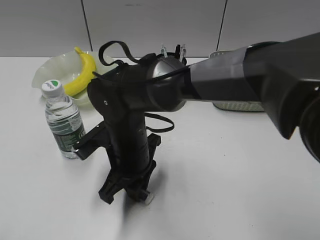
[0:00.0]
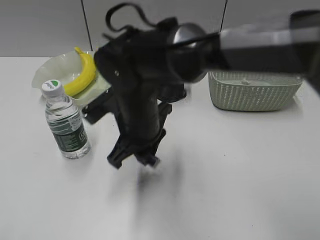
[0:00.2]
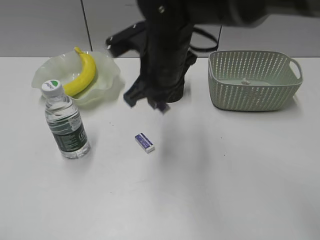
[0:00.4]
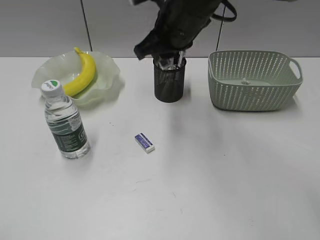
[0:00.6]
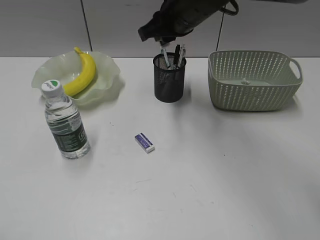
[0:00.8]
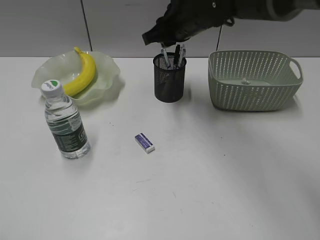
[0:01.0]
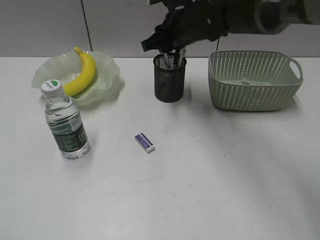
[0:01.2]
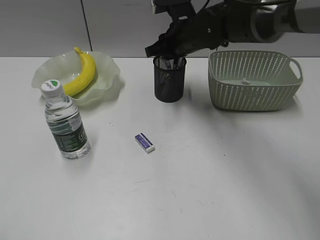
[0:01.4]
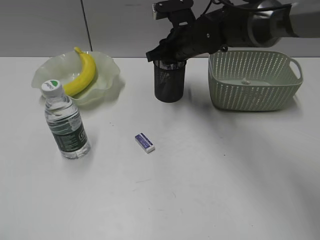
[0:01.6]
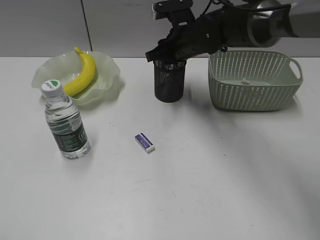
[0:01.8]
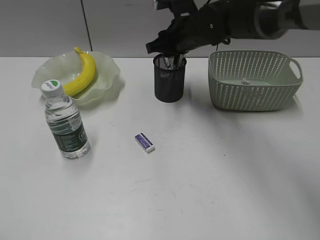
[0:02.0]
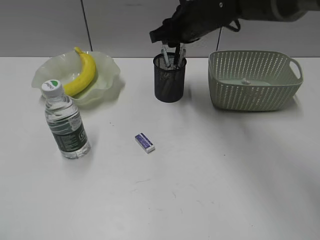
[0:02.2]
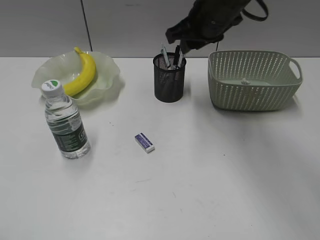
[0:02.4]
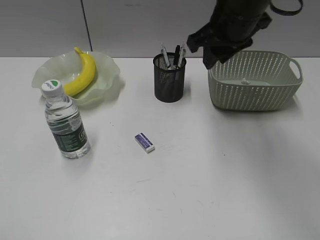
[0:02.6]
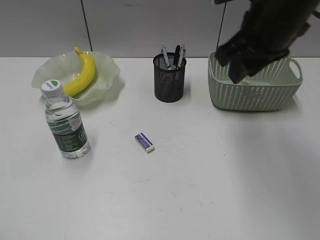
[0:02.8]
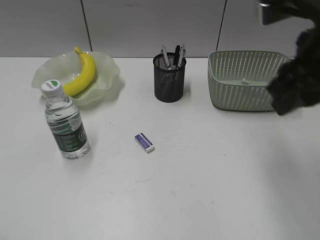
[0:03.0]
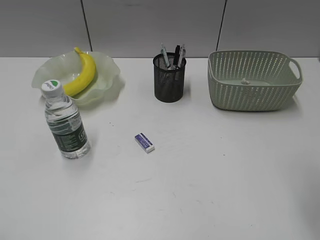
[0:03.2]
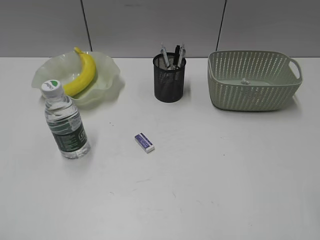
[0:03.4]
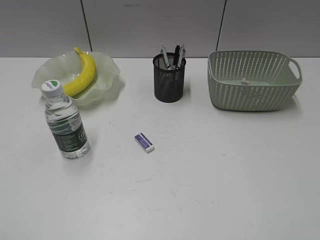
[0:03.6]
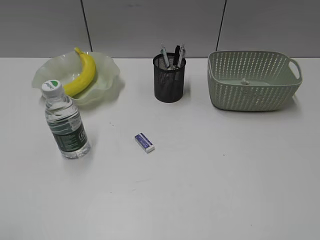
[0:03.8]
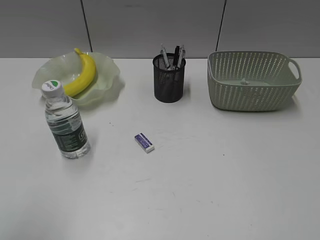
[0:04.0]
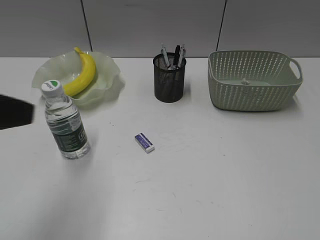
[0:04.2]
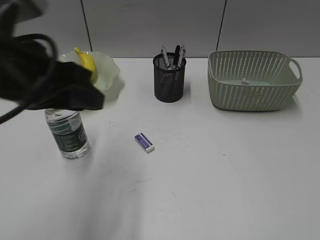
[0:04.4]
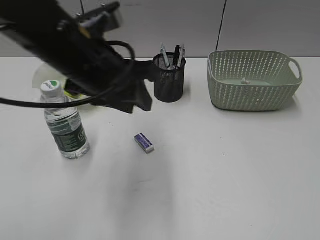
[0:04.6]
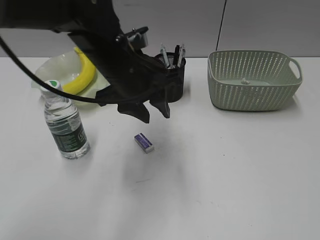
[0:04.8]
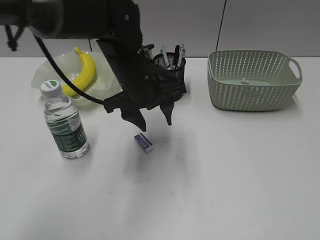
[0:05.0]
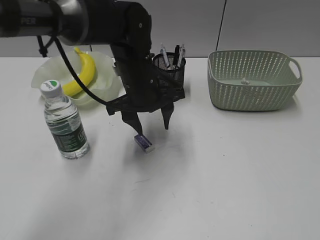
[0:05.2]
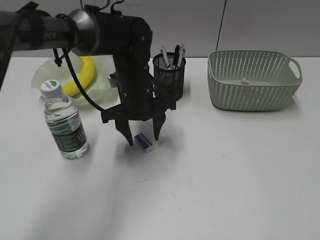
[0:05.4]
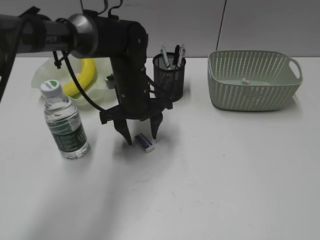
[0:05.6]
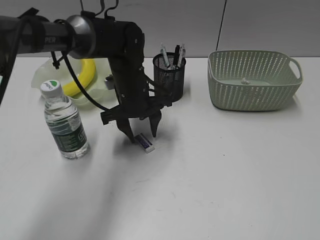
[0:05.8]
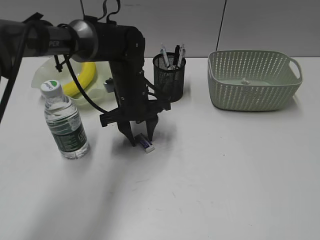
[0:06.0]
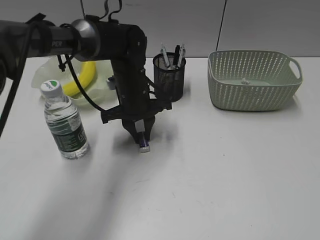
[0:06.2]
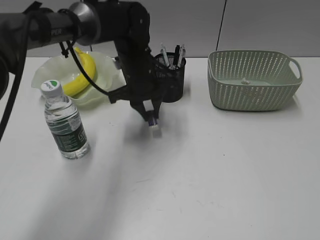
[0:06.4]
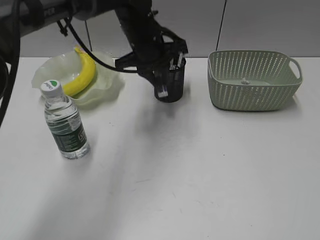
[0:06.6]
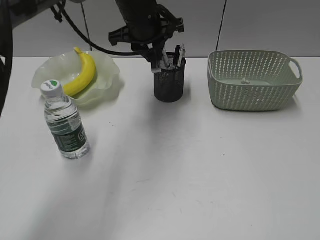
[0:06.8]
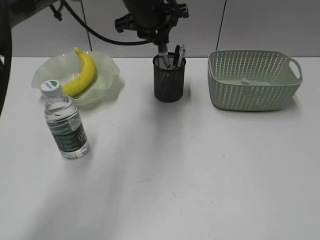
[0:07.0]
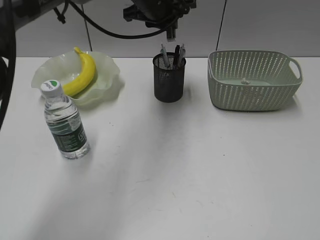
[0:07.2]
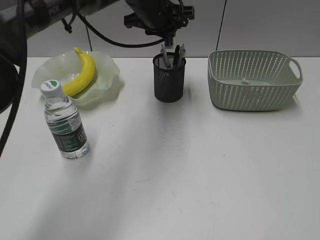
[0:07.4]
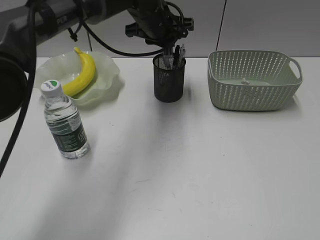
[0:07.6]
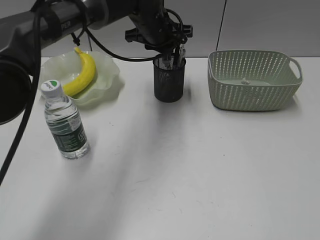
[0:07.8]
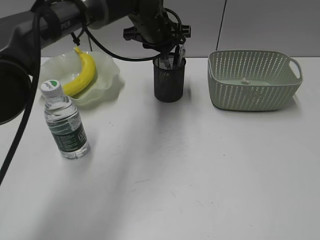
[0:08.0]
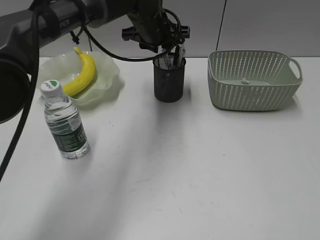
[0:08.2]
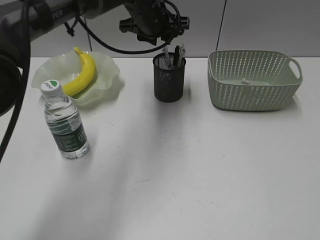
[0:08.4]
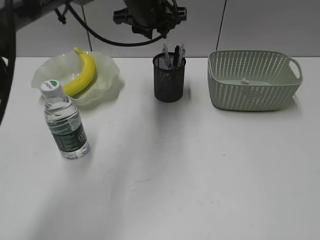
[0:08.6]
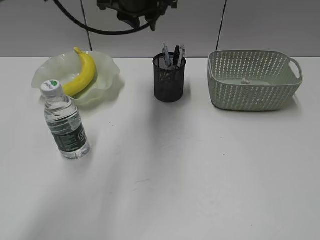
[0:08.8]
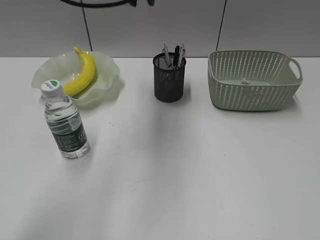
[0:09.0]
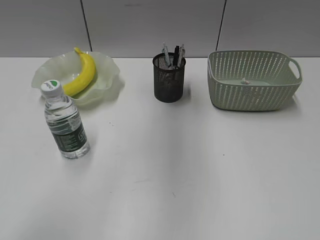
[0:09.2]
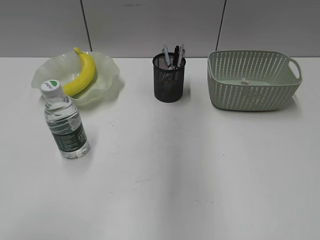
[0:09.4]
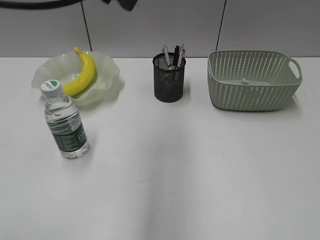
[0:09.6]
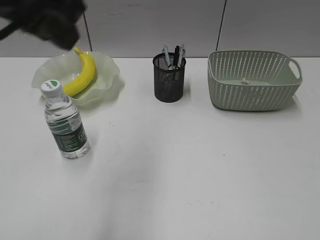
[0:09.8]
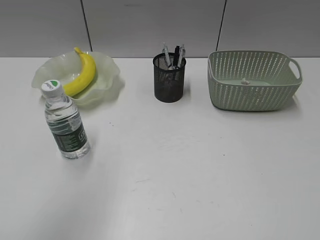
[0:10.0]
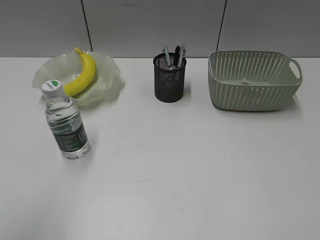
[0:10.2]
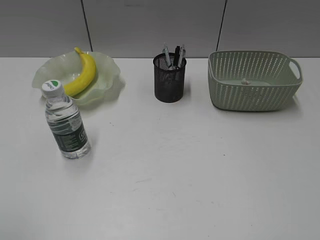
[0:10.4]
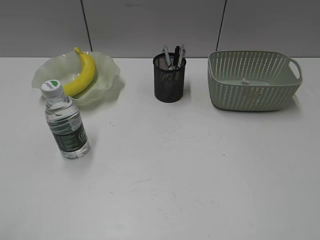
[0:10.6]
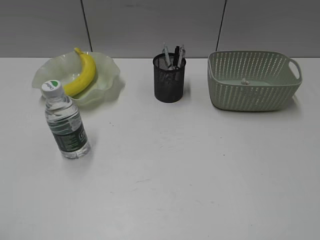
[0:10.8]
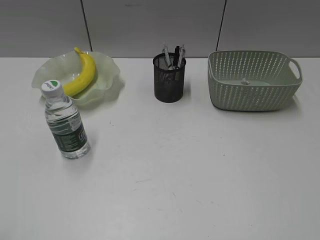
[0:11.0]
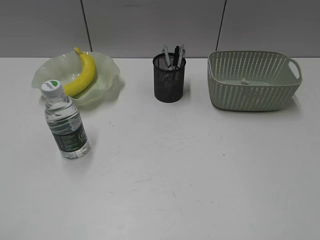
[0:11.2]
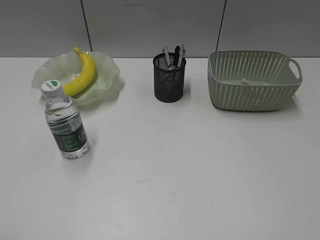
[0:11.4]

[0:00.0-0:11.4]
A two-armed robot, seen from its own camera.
Step, 0:00.0 to 0:02.0: Place the eraser in pen holder with right gripper.
Step, 0:02.2 to 0:06.0: Grasp the eraser with left gripper.
Step, 0:06.2 to 0:08.2: Place the eraser in pen holder with left gripper.
0:00.0 to 0:01.4: The right gripper heads forward, to the right and upward, covering about 25 cm.
0:01.4 to 0:02.8: The right gripper travels backward, upward and to the right by about 20 cm.
0:02.8 to 0:04.2: The left gripper travels forward and to the right by about 15 cm; the right gripper shifts about 35 cm backward and to the right.
0:04.2 to 0:05.6: The left gripper is displaced forward, to the right and downward by roughly 35 cm.
0:05.6 to 0:07.2: The left gripper is displaced upward and forward by approximately 15 cm, and closes up.
0:07.2 to 0:08.6: The grippers move only a little.
0:08.6 to 0:10.0: The left gripper moves backward, to the left and upward, about 35 cm.

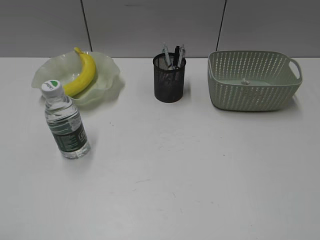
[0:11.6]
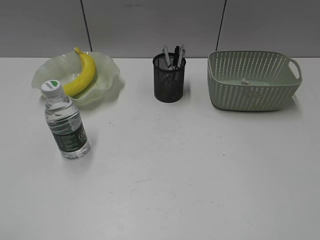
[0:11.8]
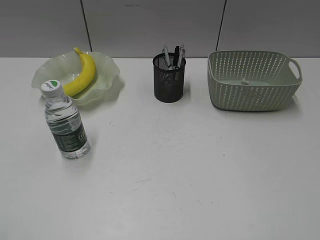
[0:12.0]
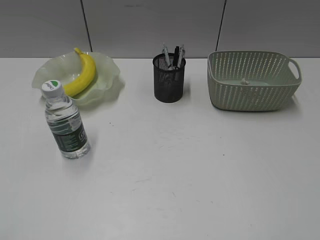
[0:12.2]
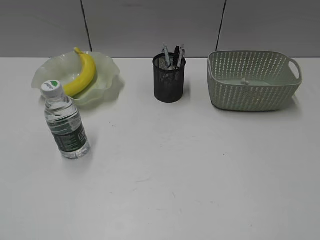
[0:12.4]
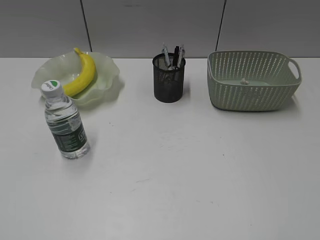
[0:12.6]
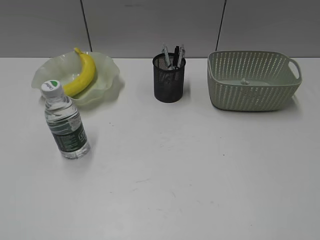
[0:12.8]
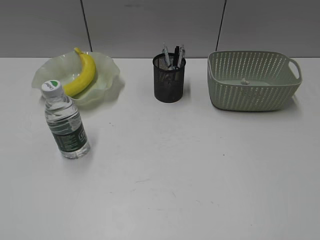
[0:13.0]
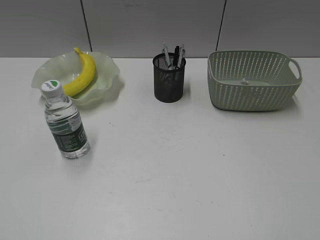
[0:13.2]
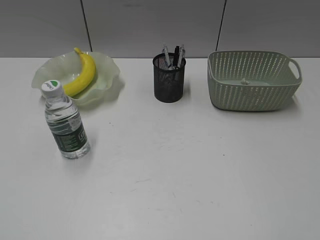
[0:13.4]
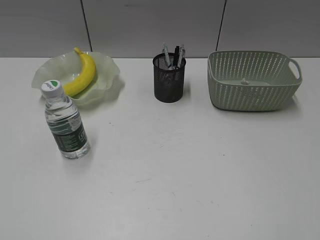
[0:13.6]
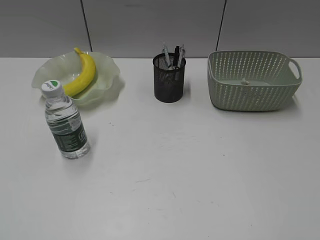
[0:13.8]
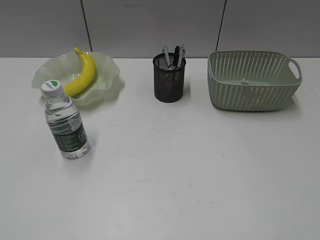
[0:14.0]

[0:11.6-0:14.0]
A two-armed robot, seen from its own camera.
0:12.8 to 0:14.0: Neither gripper changes place.

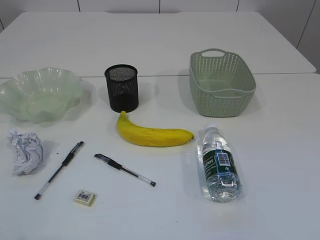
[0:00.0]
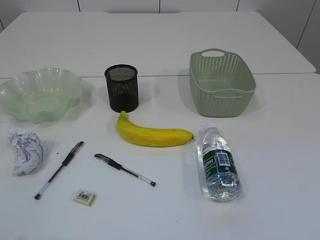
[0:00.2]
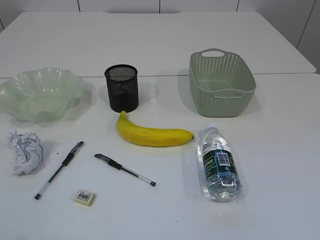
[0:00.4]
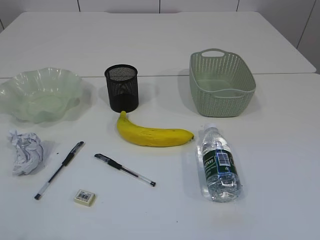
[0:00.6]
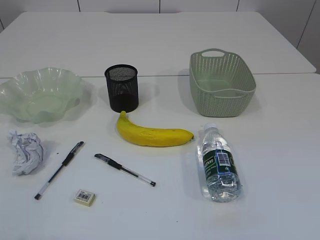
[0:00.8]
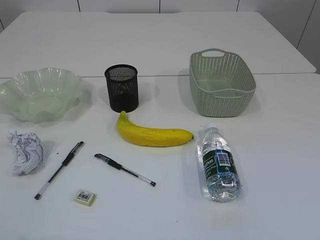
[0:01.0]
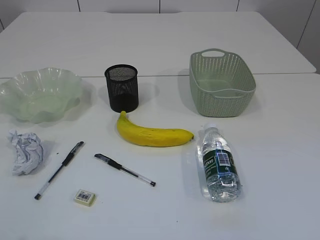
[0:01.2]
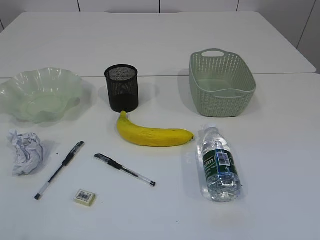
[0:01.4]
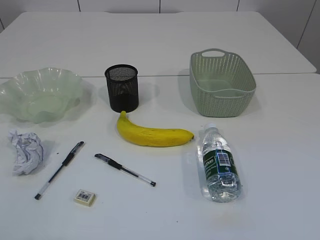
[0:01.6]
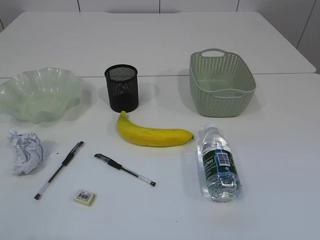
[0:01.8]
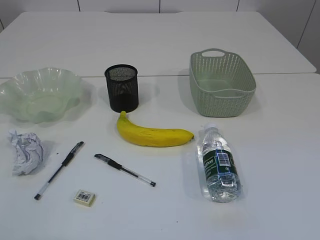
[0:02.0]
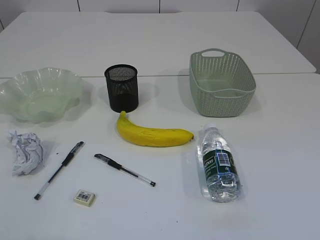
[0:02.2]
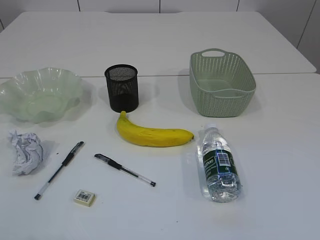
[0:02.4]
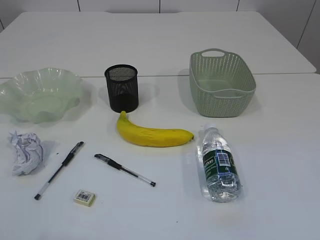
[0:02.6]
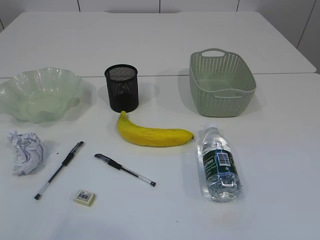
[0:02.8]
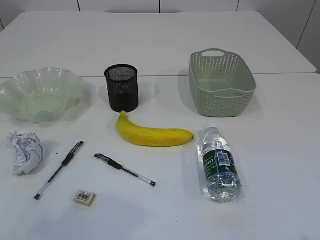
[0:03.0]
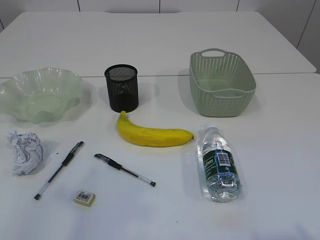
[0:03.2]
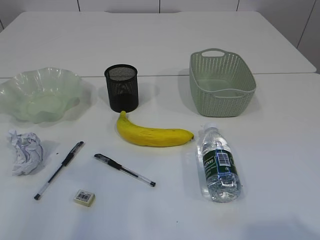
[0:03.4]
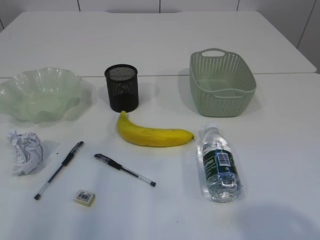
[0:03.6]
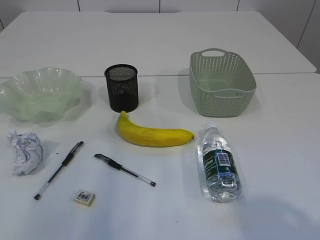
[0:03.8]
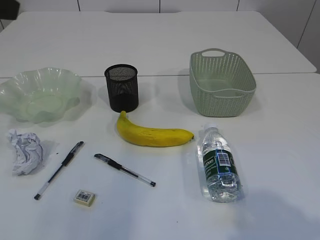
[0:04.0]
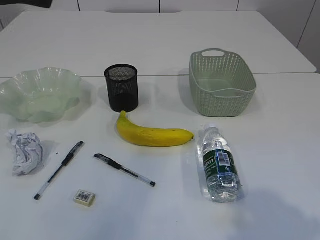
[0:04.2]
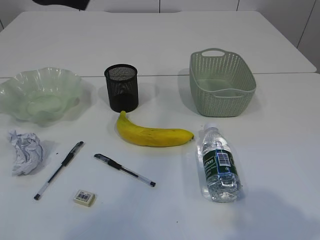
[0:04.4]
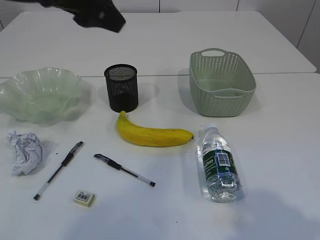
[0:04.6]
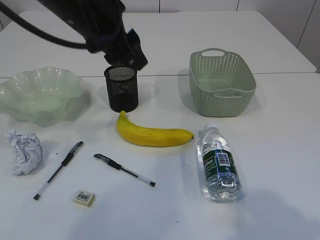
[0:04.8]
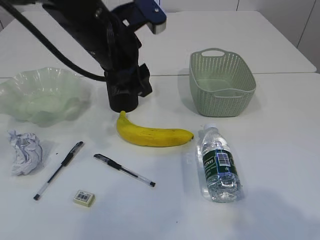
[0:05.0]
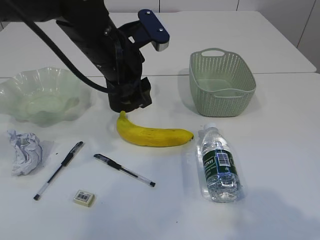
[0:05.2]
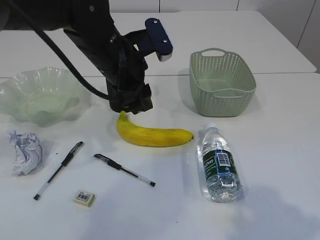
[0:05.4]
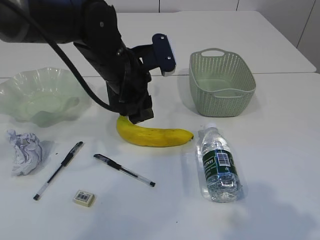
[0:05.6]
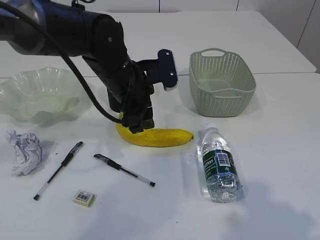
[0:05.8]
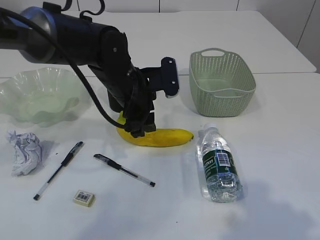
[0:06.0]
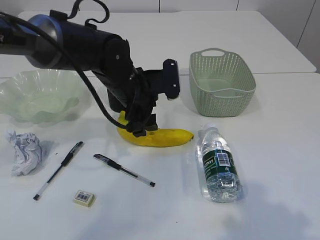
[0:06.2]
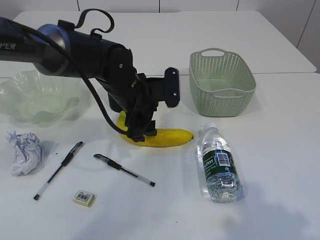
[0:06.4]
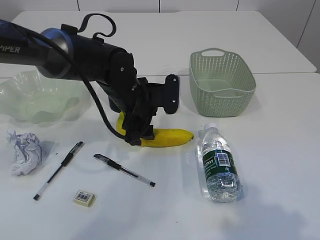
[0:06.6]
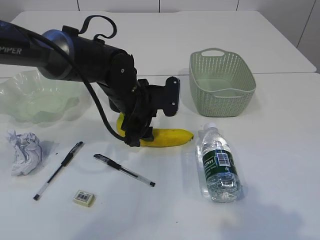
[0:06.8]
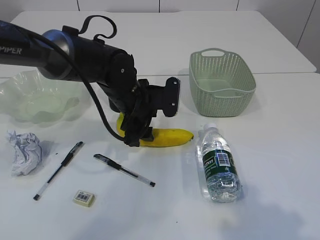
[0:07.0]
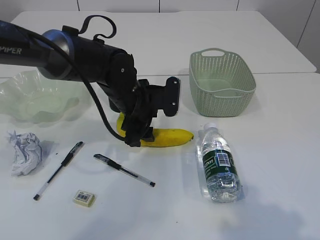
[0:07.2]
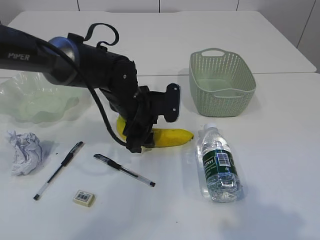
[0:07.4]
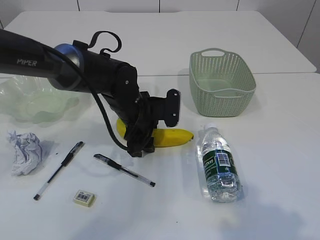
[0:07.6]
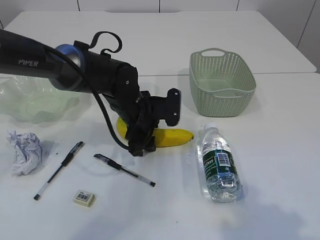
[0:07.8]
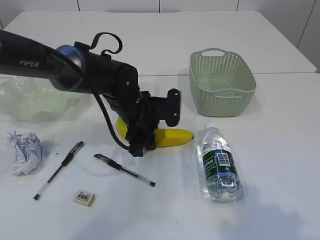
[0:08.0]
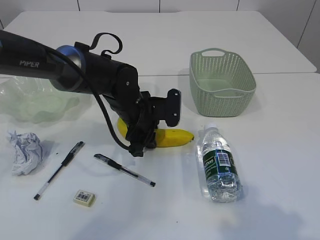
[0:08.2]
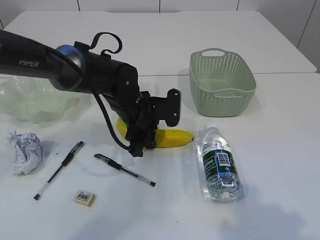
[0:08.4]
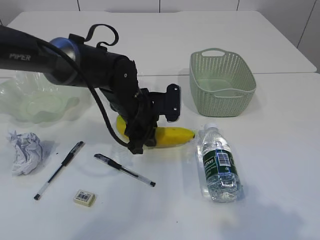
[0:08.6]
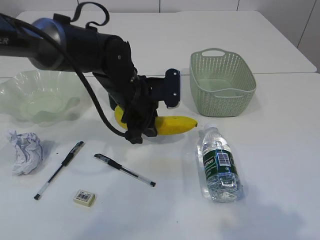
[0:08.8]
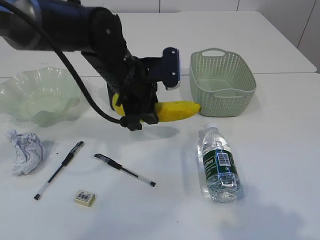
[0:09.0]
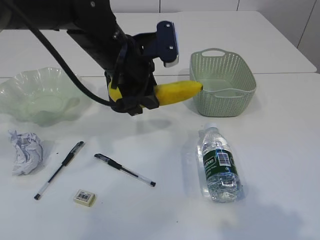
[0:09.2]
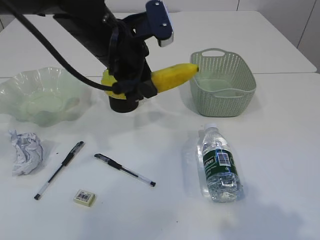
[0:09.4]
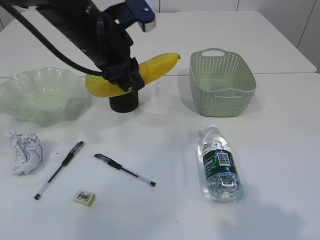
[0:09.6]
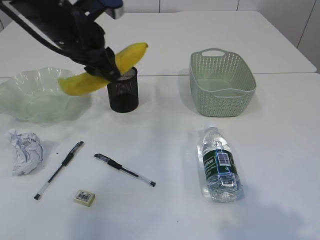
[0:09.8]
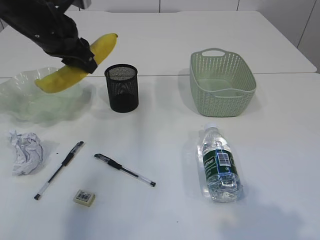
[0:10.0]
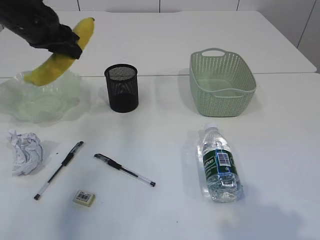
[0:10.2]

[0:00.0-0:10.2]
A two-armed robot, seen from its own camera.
0:03.0 to 0:04.4: The left gripper is displaced forward by about 25 cm, while the right gripper travels forward by some 10 cm.
0:04.4 to 0:05.8: The left gripper moves downward and to the right, approximately 25 cm.
0:05.8 to 0:07.2: The left gripper heads downward, covering approximately 5 cm.
0:07.2 to 0:08.8: The left gripper closes its fingers.
0:08.8 to 0:10.2: The left gripper moves to the left and upward, about 20 cm.
